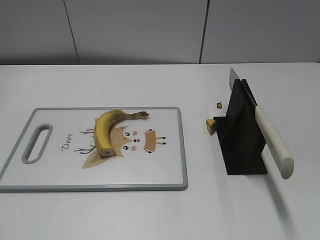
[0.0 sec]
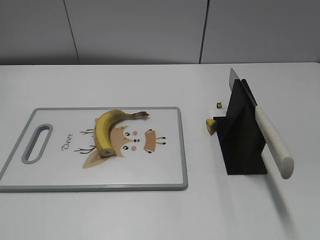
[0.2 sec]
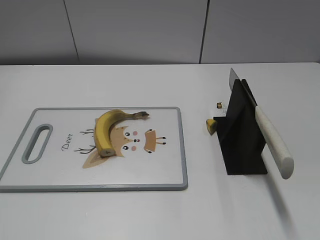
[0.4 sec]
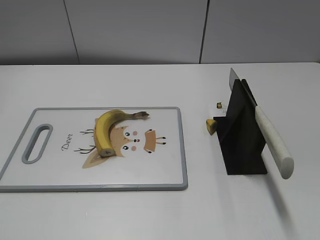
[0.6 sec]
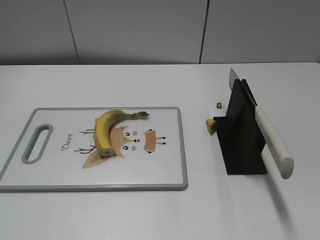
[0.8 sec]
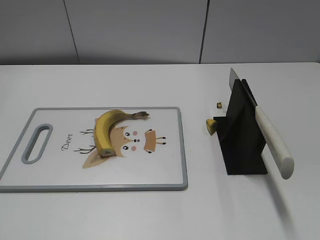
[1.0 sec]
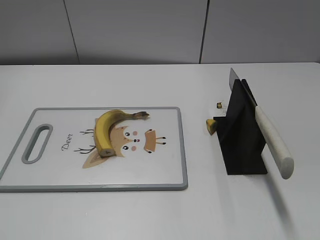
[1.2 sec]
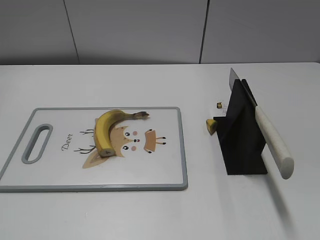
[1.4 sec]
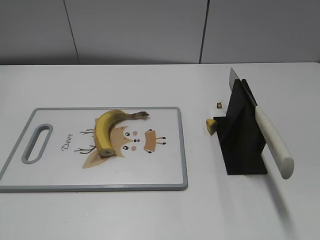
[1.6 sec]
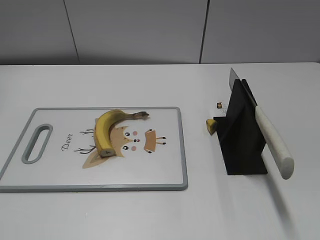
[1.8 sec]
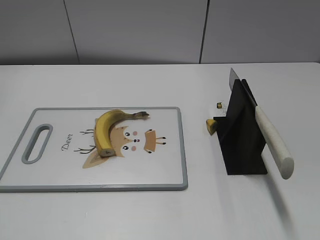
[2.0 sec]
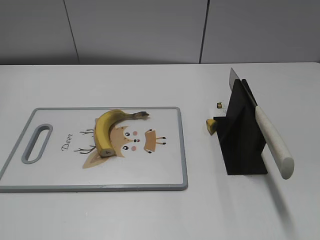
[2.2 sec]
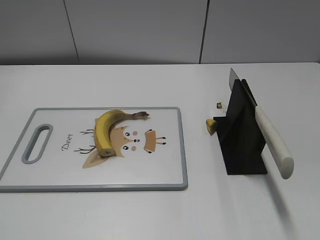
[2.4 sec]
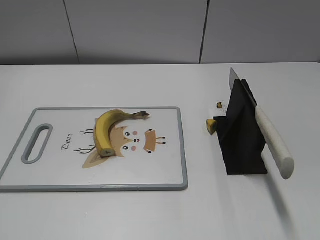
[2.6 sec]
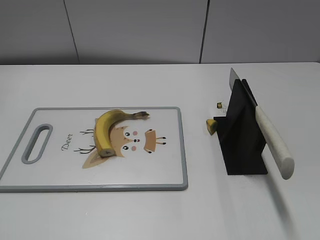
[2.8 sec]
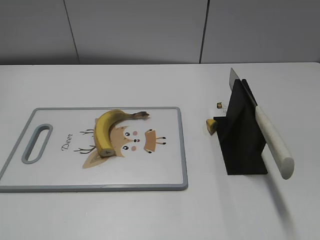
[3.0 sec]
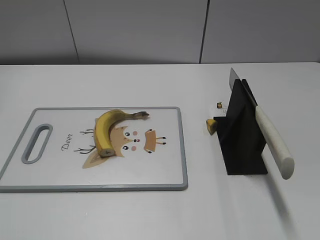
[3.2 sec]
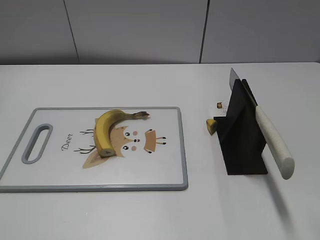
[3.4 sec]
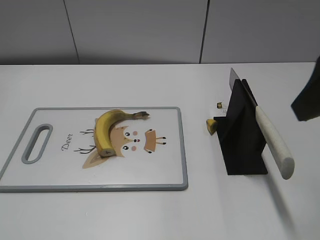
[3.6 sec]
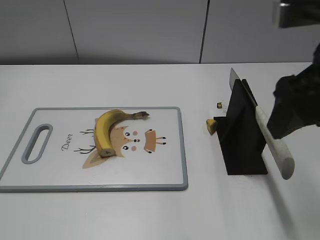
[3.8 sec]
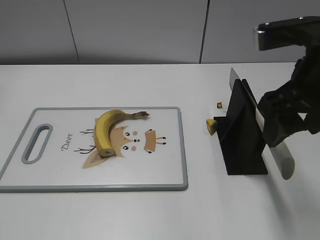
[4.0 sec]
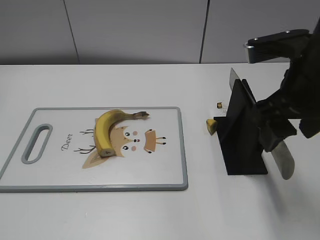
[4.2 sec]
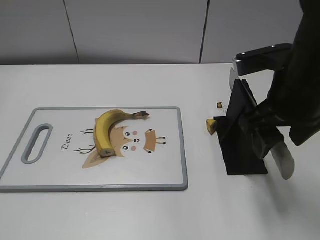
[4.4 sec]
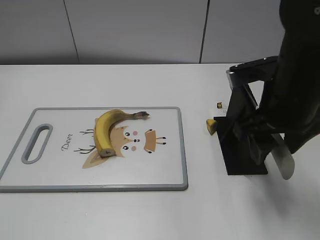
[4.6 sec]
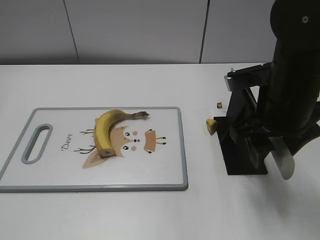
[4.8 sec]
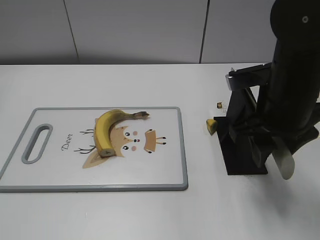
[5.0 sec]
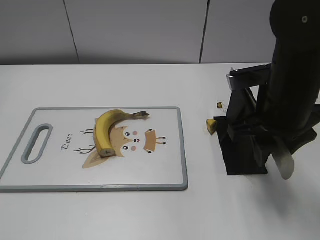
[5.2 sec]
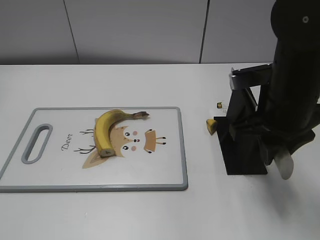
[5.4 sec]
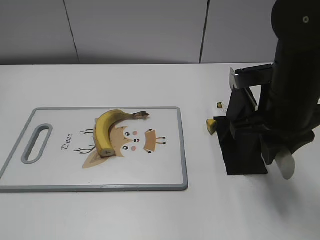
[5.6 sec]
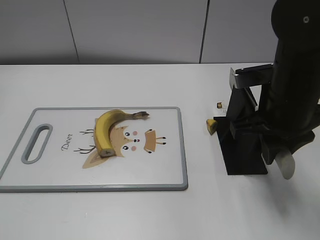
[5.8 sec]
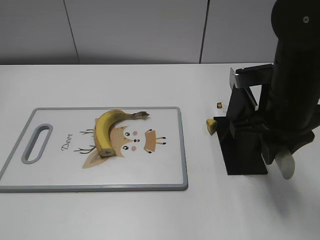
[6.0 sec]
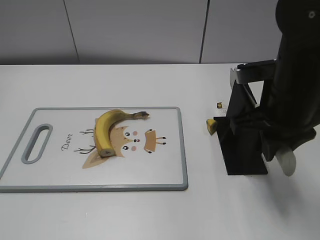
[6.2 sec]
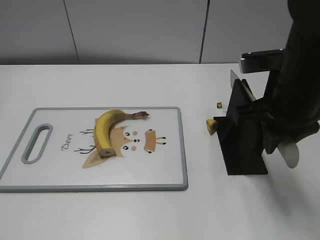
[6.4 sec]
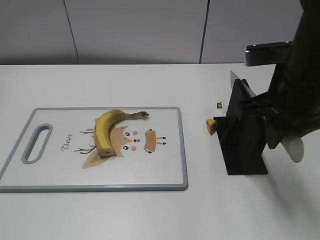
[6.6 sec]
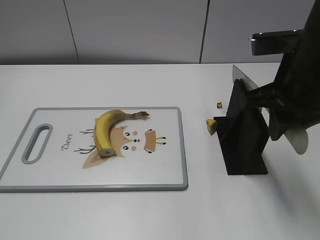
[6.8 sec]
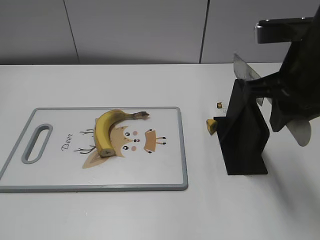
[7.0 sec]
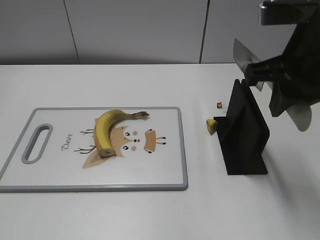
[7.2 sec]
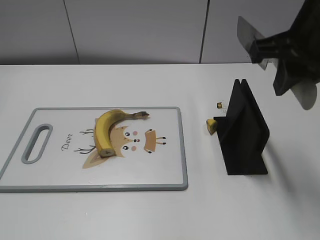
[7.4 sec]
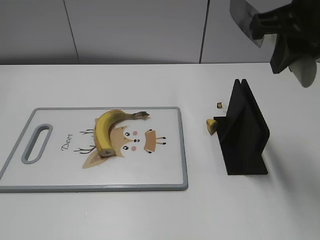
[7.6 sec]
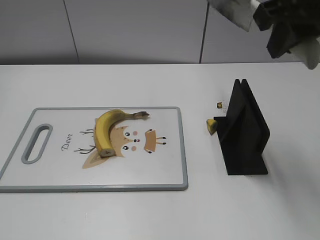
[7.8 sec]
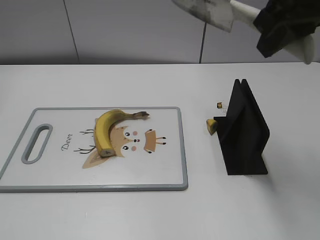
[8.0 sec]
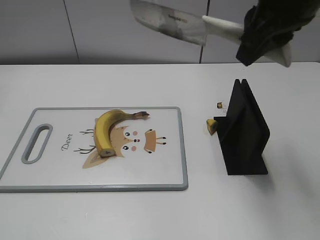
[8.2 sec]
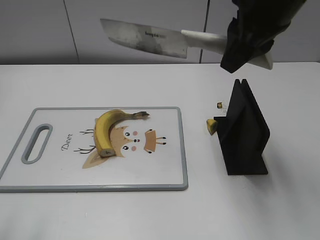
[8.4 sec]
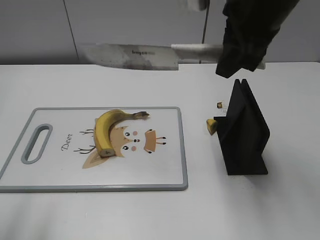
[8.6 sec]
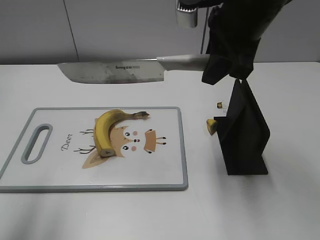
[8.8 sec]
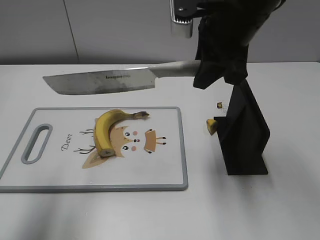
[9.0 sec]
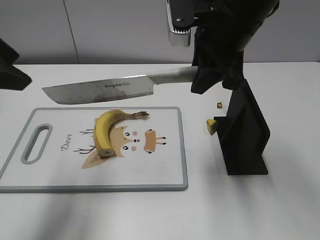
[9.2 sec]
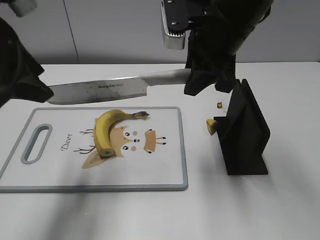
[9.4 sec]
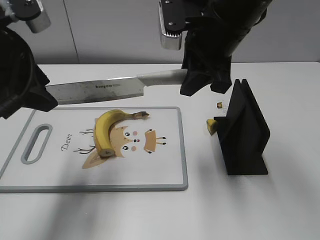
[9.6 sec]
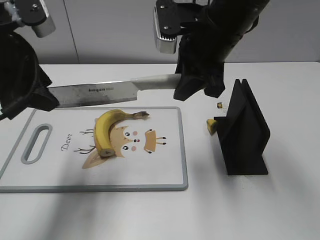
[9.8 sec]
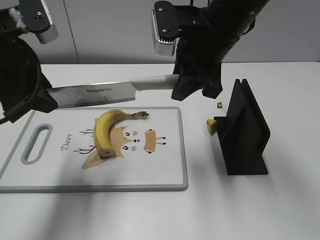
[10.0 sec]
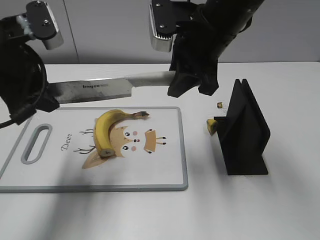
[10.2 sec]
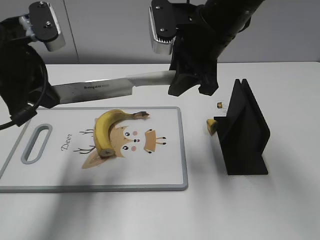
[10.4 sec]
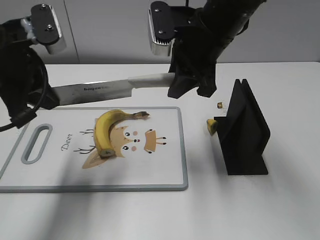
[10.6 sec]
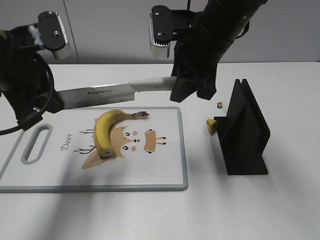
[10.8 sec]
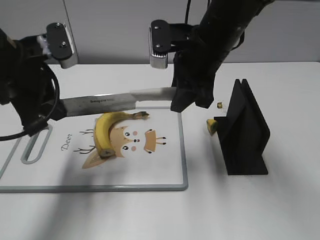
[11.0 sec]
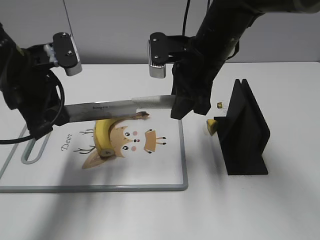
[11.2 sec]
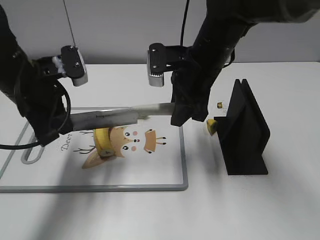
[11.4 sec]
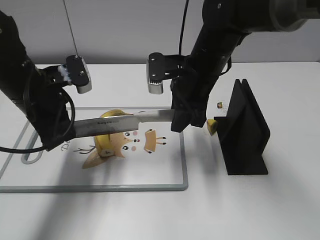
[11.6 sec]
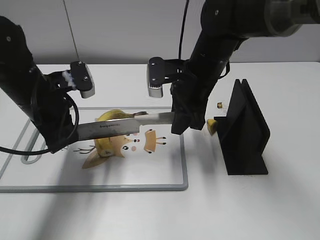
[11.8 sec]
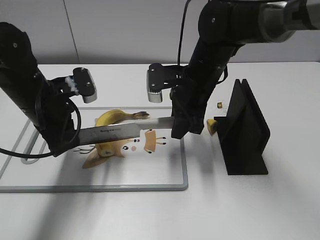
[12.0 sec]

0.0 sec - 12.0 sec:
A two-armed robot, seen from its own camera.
Task of the whole recording: cut banana.
Step, 0.0 sec - 7.0 sec: Grab the knife handle with your right hand.
3.0 sec - 4.4 sec: The right gripper moves forward, to the left and downward, some 20 cm.
4.4 sec - 6.0 sec: The right gripper closes.
6.0 sec - 7.6 sec: The right gripper travels upward by approximately 15 cm.
7.6 sec - 9.0 sec: The left gripper travels forward by some 20 cm. Meanwhile the right gripper travels to the left and forward by some 10 cm.
9.0 sec - 10.4 sec: The left gripper heads forward, downward and to the right, covering roughly 15 cm, and closes its fingers; the right gripper shifts by approximately 5 cm.
10.4 sec - 12.0 sec: The grippers both shift downward by approximately 10 cm.

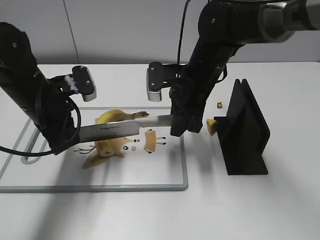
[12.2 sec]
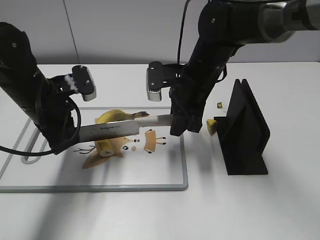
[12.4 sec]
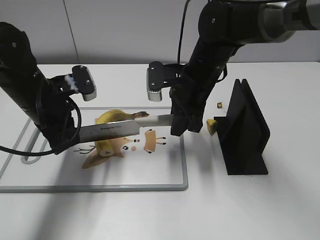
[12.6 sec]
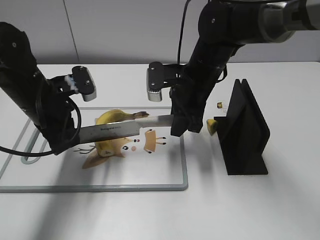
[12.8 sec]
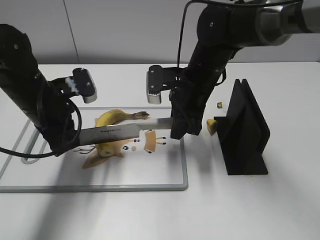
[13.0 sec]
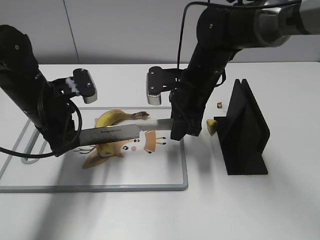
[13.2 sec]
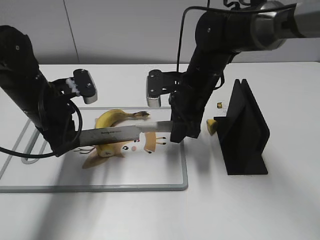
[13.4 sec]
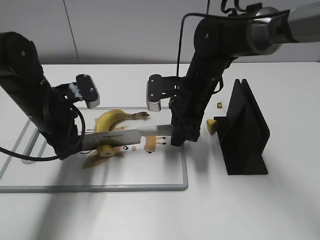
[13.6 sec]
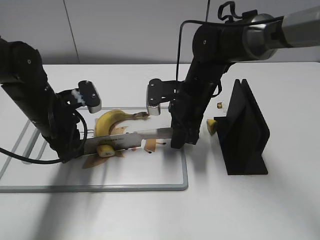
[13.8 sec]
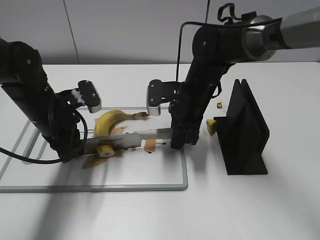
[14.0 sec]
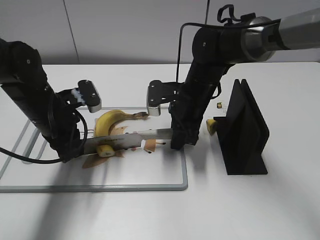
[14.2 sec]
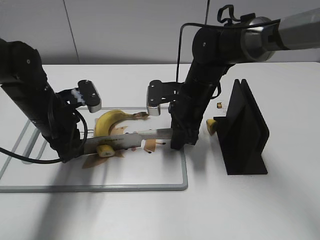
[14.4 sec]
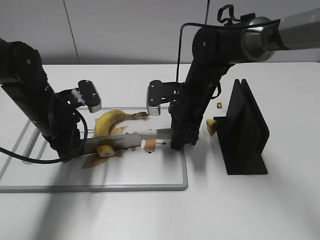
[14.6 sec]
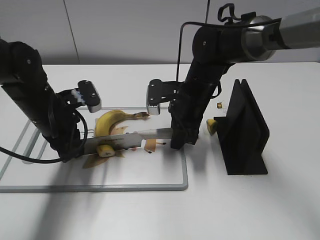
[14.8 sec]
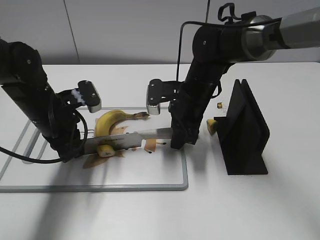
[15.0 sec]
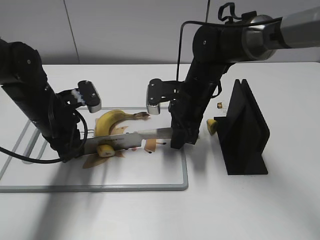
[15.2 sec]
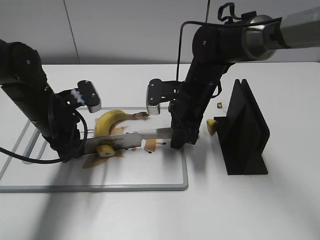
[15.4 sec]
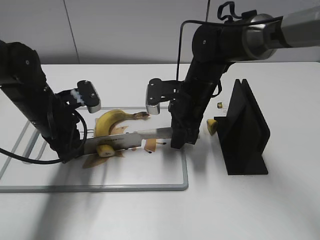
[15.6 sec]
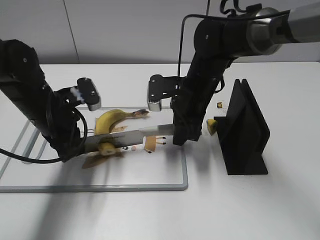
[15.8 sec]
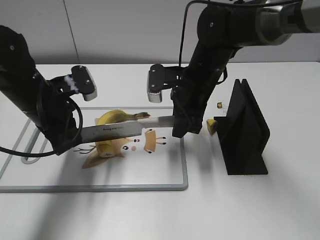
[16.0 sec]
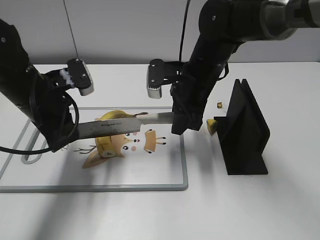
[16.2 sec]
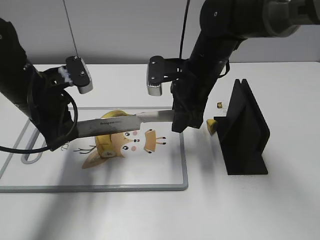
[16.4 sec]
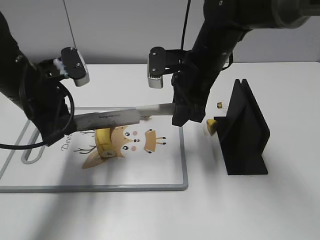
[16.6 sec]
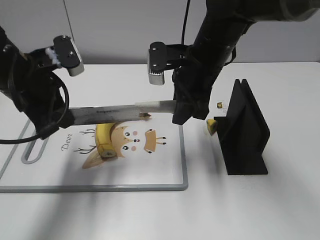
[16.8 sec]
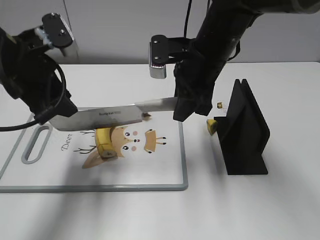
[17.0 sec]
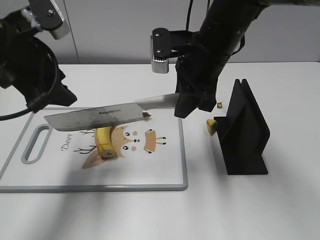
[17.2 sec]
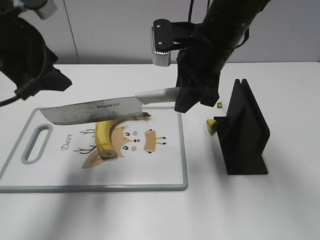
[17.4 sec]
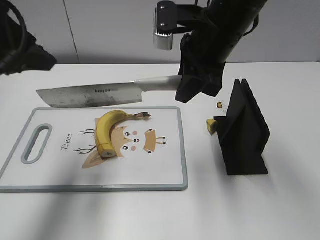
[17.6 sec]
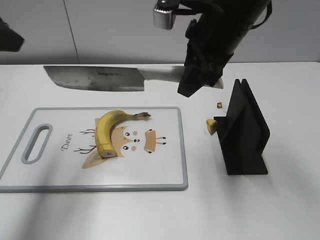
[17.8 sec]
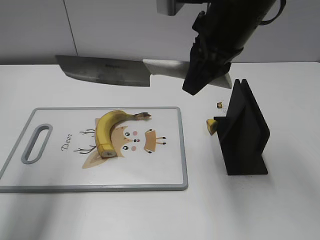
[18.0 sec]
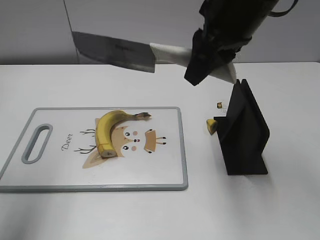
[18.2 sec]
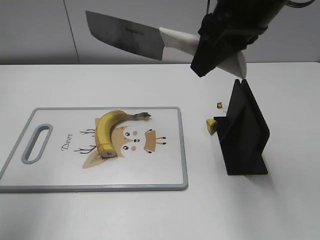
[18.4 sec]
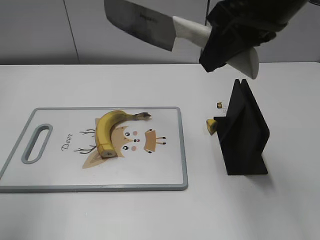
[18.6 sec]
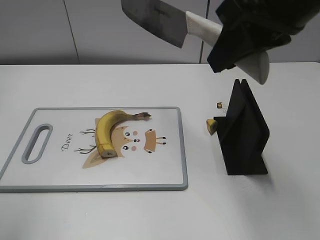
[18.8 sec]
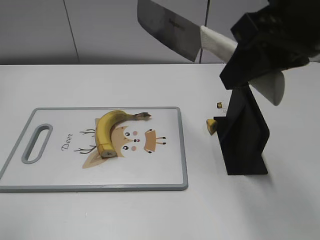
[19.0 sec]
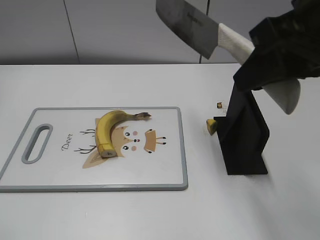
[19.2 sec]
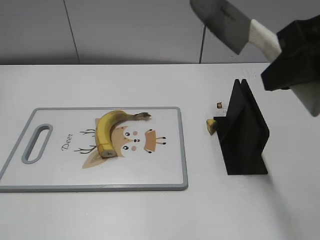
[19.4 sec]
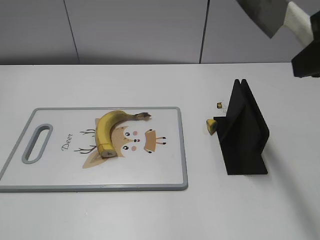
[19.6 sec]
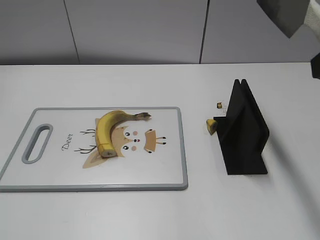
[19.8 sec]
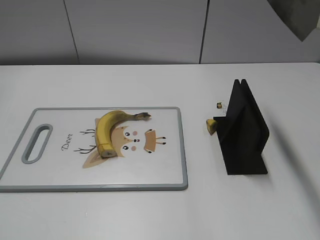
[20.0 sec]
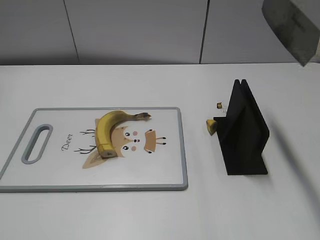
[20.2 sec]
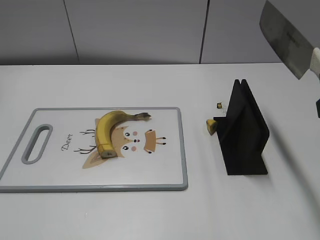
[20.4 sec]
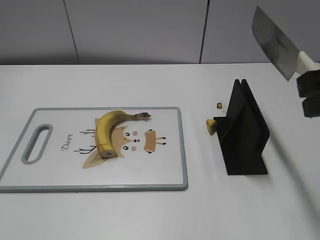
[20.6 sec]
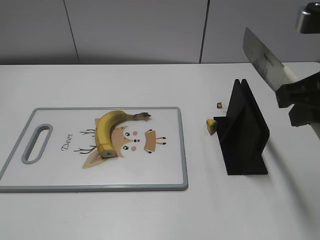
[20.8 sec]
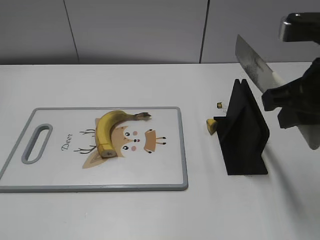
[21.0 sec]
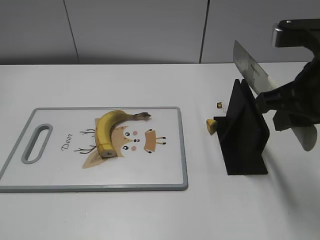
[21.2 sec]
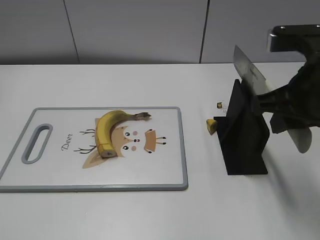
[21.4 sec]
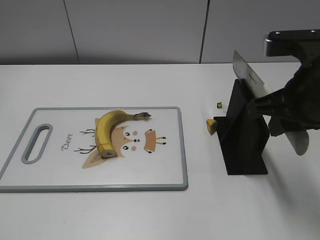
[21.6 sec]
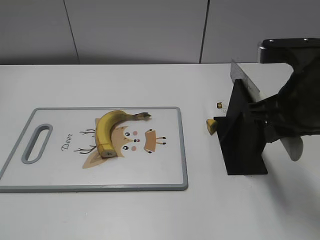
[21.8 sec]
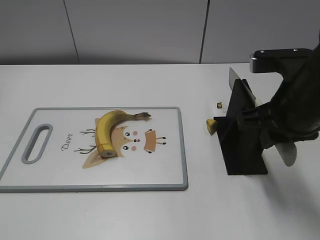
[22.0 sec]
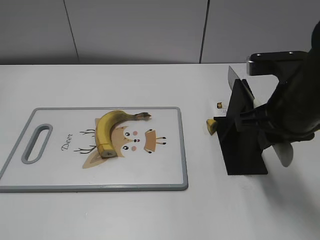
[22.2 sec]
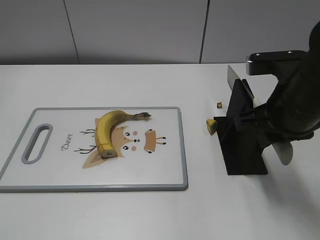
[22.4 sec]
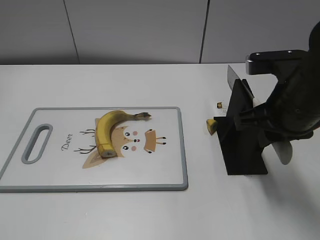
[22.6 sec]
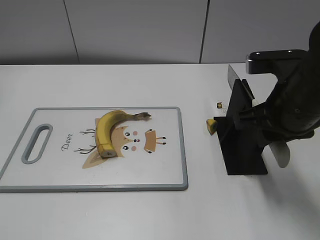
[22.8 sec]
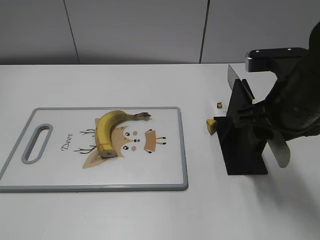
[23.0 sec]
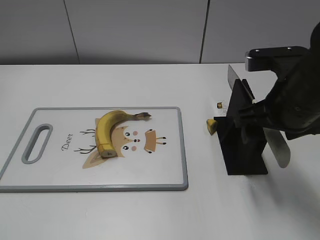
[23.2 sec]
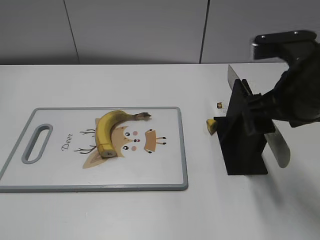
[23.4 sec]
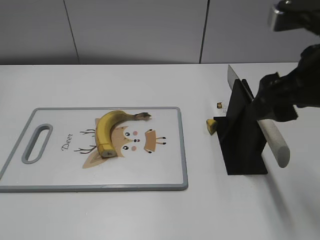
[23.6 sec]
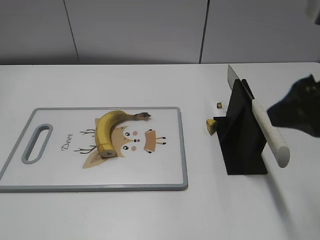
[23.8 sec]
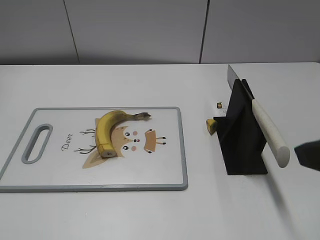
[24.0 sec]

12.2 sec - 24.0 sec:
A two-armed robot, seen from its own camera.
Task of the whole recording: cut banana.
Step, 13.2 sec - 18.6 sec: Cut the banana with your right hand.
Step, 18.8 sec - 21.2 sec: Lift the knife with your right hand.
12.2 sec - 15.2 sec: There are only small adjustments of the grippers.
15.2 sec - 16.6 sec: The two grippers go about 5 cm upward.
16.6 sec - 18.2 sec: The left gripper goes roughly 20 cm upward, to the left and backward, and opens its fingers. The right gripper goes about 15 cm upward and backward.
18.2 sec - 19.6 sec: The left gripper travels backward by some 20 cm. The right gripper shifts some 15 cm backward and to the right.
19.6 sec - 21.0 sec: The right gripper moves downward, roughly 10 cm.
21.0 sec - 22.6 sec: The right gripper travels downward by about 5 cm.
22.6 sec - 24.0 sec: The right gripper heads backward and upward, covering roughly 15 cm, and opens its fingers.
